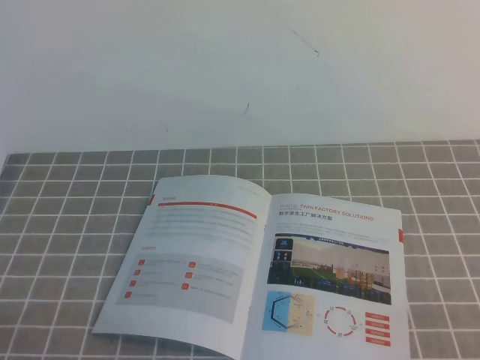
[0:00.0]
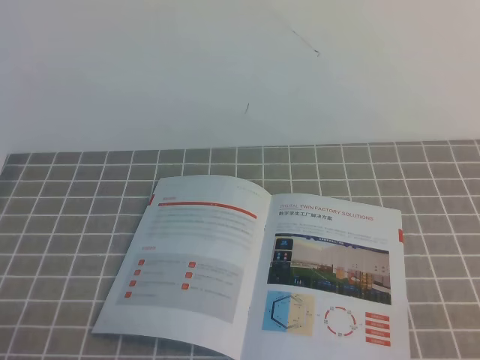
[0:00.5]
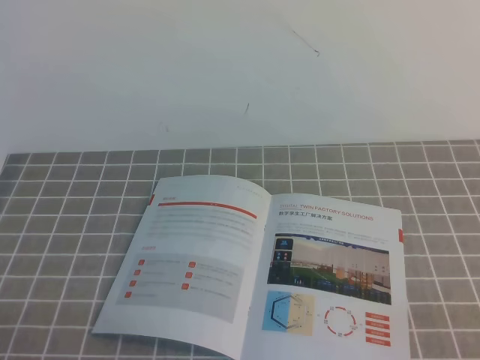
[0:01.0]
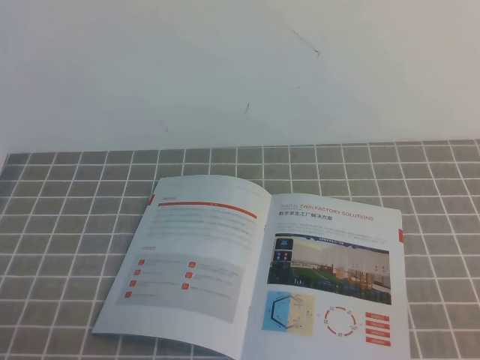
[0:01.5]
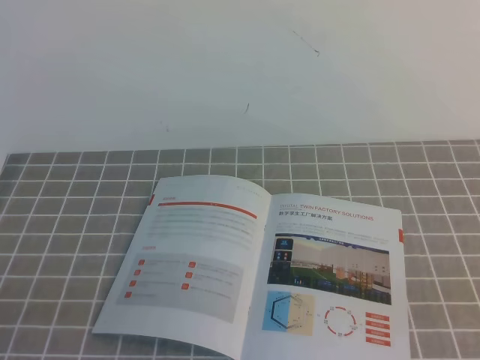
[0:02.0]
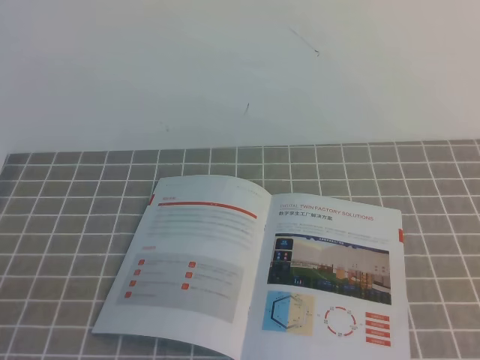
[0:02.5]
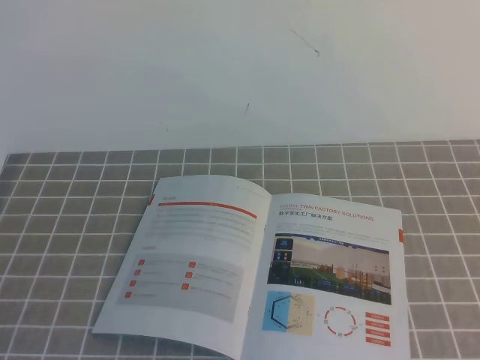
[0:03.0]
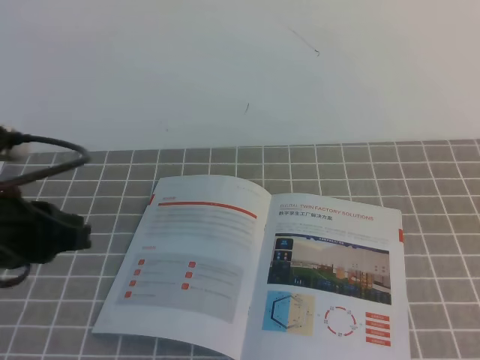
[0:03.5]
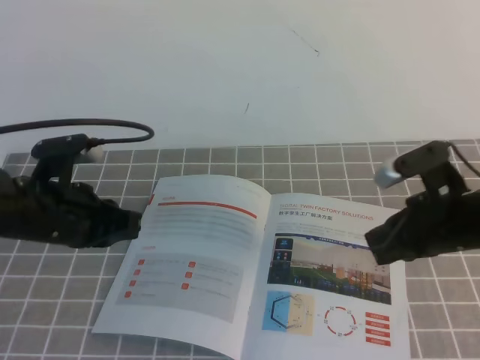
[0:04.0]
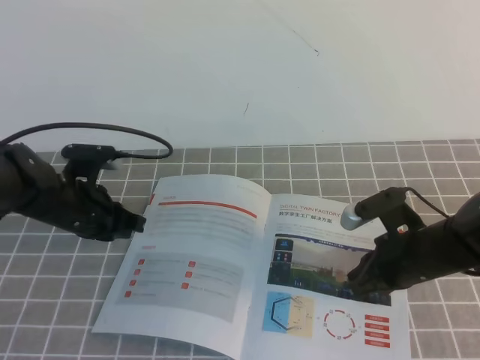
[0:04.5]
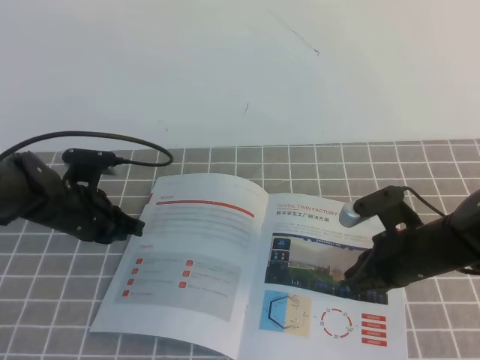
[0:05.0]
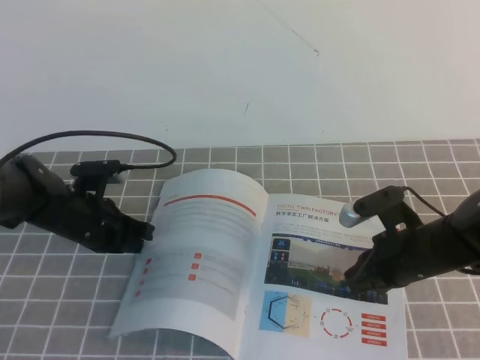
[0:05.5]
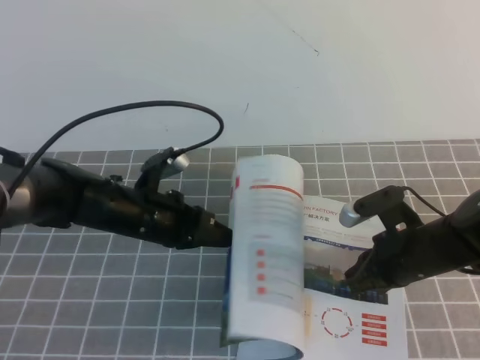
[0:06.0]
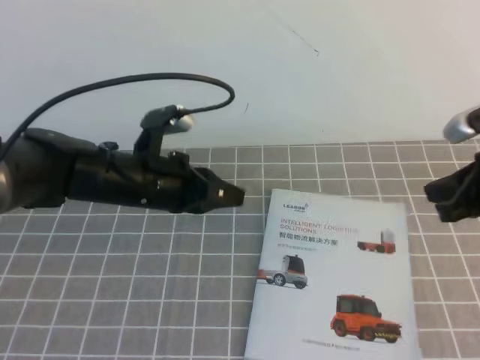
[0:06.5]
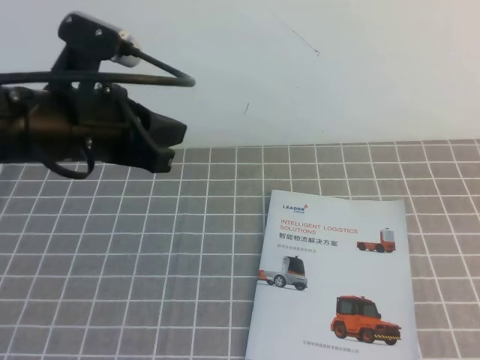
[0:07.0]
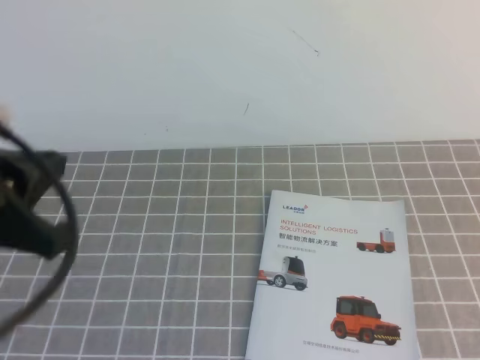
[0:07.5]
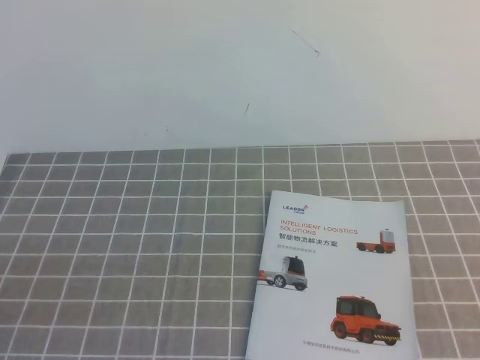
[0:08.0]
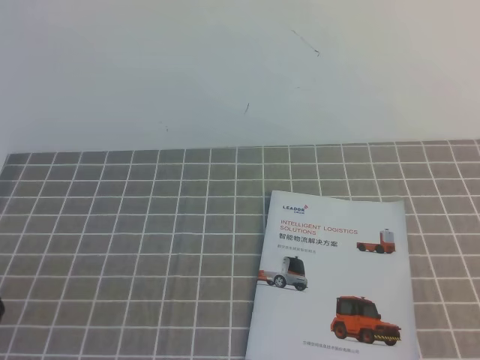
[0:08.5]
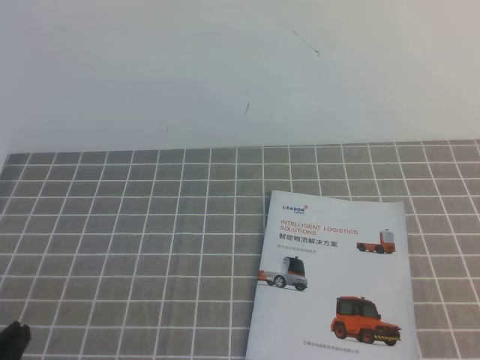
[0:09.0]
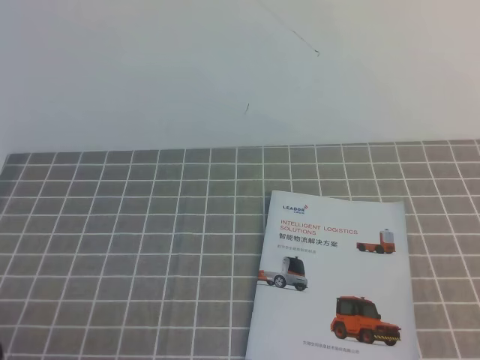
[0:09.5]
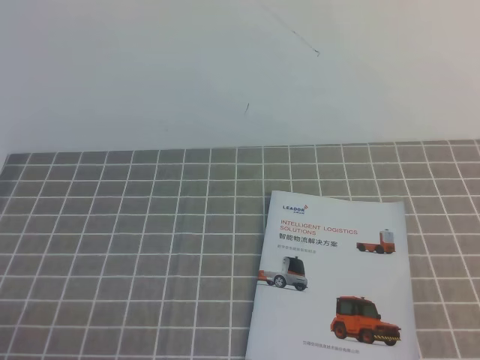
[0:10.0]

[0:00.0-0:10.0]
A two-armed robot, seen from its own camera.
Task of the whole recording: on the grey tablecloth, hold the book with one hand and close it with the other.
0:02.0 to 0:04.0: The right gripper is displaced forward and to the left by roughly 25 cm; the left gripper travels forward by about 25 cm.
0:04.0 to 0:06.0: The right gripper goes some 10 cm downward. The left gripper shifts roughly 10 cm downward, forward and to the right.
0:06.0 to 0:08.0: The right gripper goes some 30 cm backward, upward and to the right, while the left gripper moves backward and upward, some 30 cm.

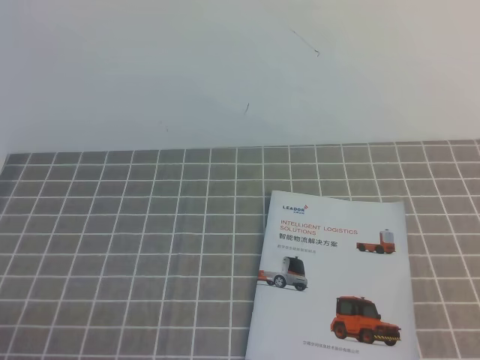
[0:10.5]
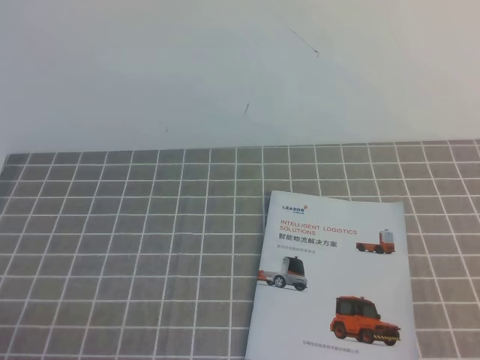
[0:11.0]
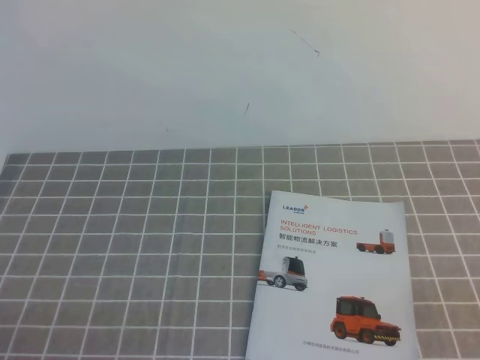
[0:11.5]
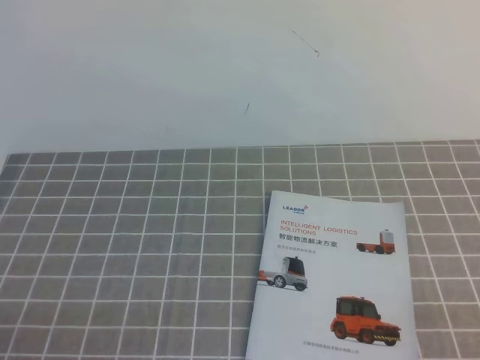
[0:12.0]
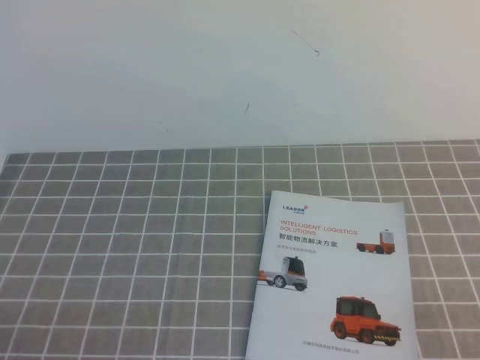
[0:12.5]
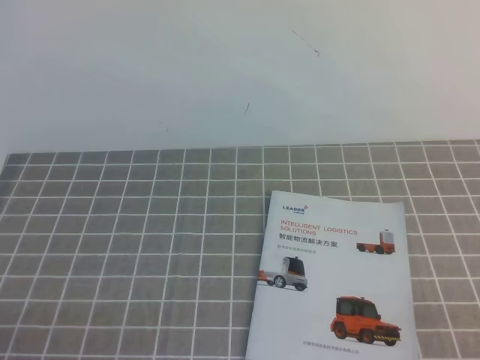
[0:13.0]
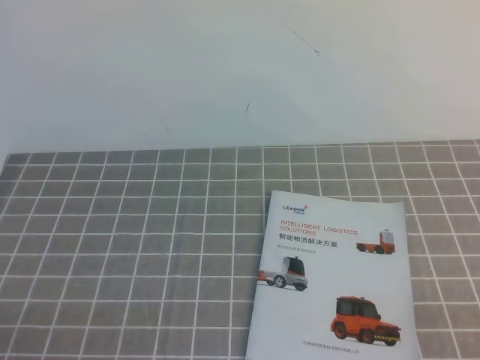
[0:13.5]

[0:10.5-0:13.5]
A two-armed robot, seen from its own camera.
Task of the whole recording: on the grey tablecloth, hold the book with one hand and close it with the other.
0:12.0 to 0:13.5: The two grippers keep their place.
